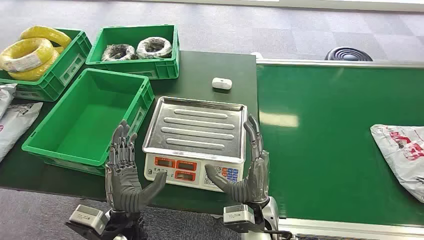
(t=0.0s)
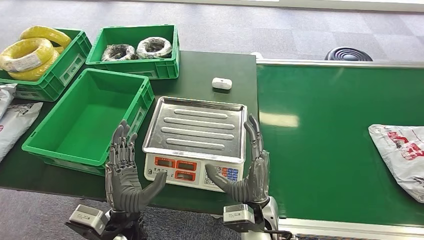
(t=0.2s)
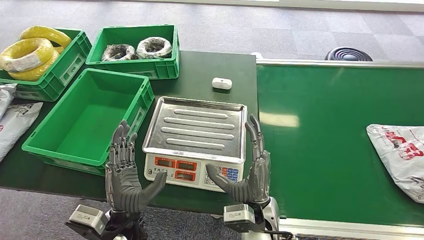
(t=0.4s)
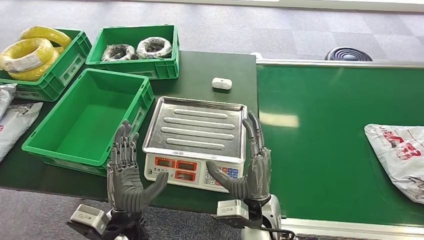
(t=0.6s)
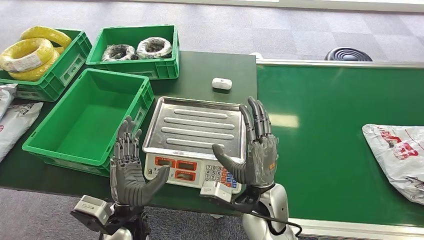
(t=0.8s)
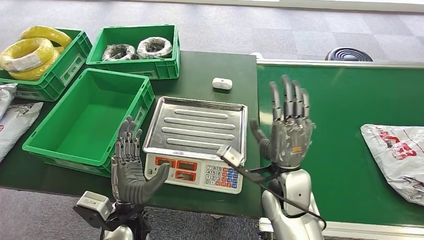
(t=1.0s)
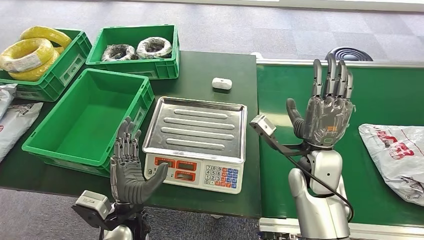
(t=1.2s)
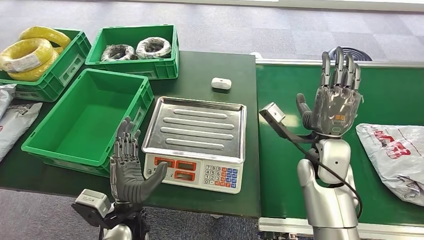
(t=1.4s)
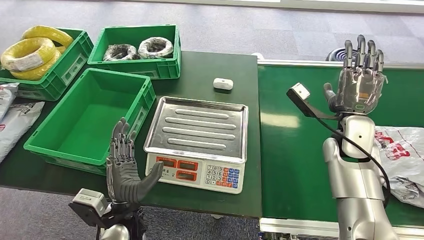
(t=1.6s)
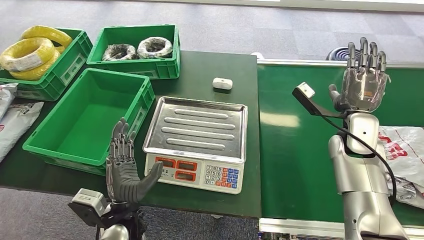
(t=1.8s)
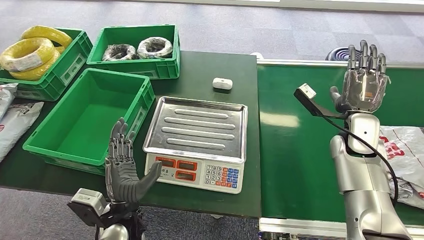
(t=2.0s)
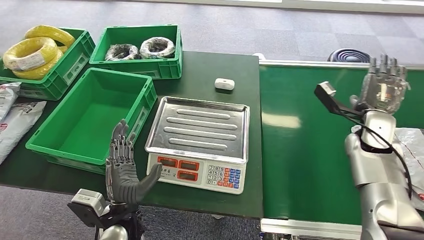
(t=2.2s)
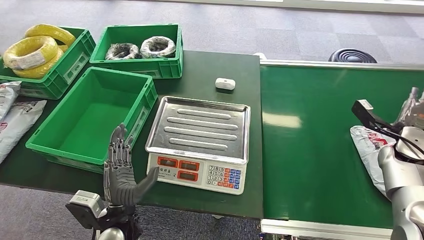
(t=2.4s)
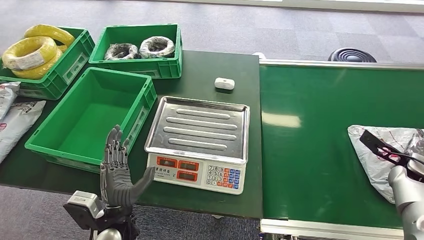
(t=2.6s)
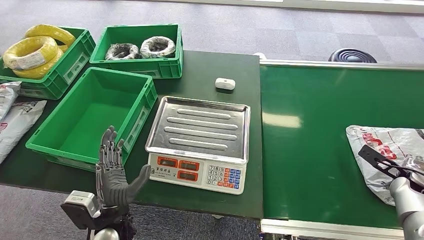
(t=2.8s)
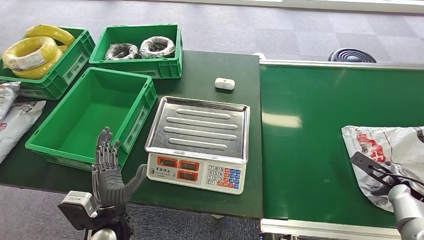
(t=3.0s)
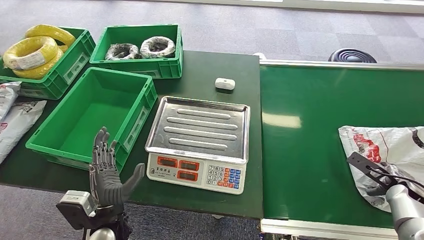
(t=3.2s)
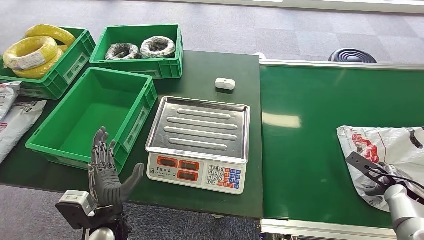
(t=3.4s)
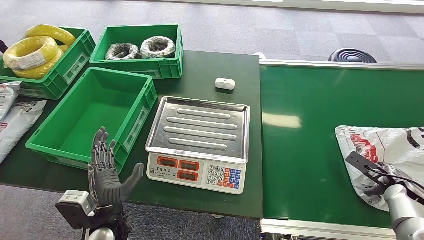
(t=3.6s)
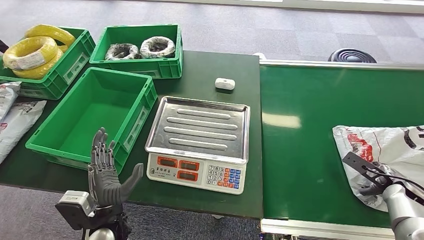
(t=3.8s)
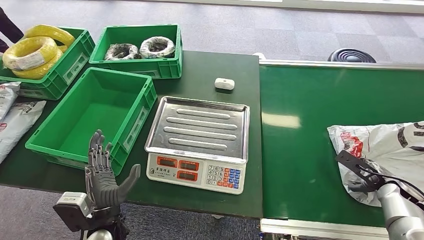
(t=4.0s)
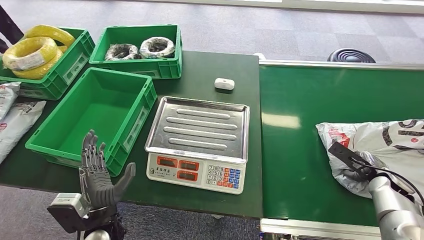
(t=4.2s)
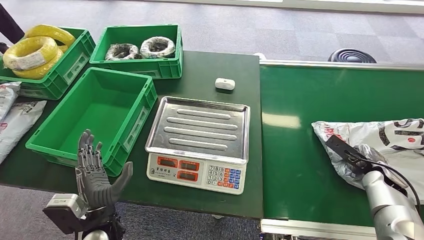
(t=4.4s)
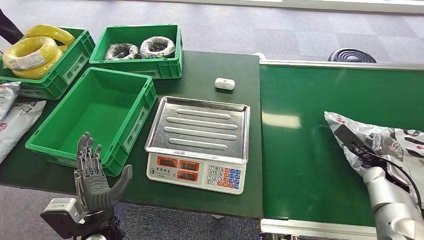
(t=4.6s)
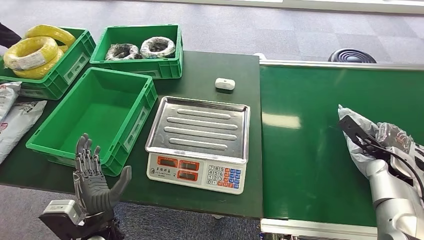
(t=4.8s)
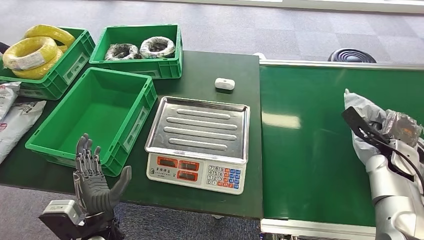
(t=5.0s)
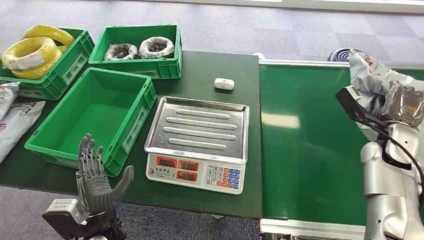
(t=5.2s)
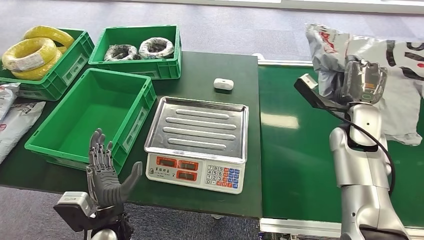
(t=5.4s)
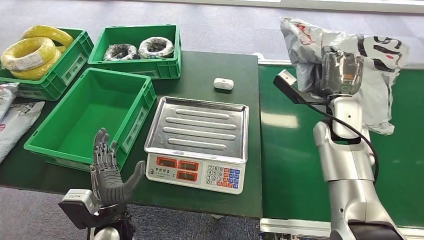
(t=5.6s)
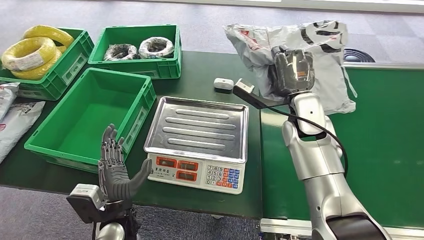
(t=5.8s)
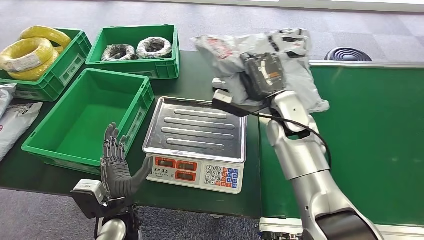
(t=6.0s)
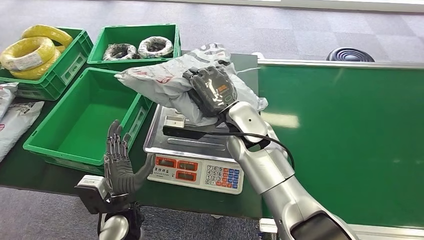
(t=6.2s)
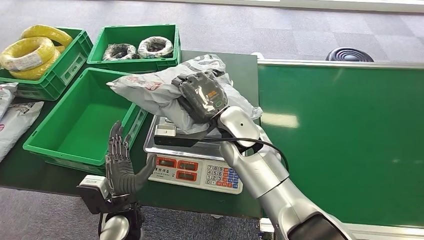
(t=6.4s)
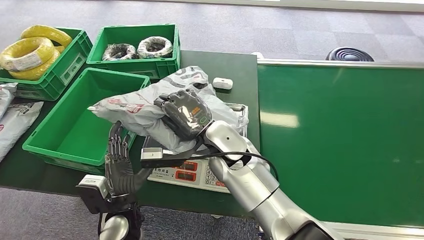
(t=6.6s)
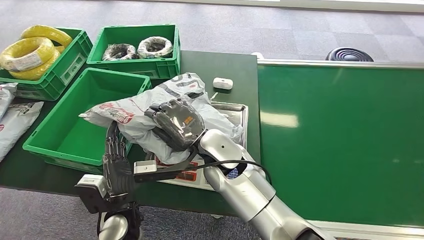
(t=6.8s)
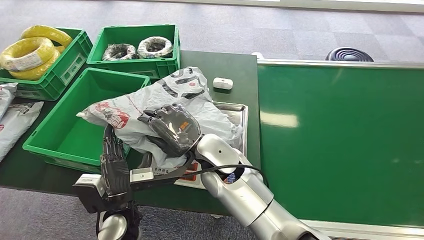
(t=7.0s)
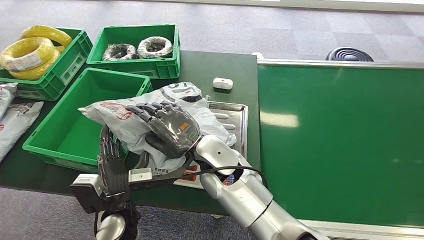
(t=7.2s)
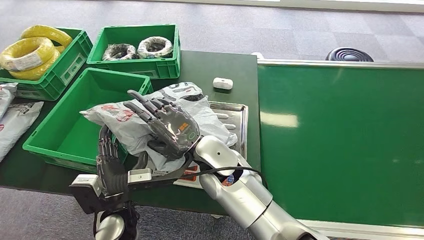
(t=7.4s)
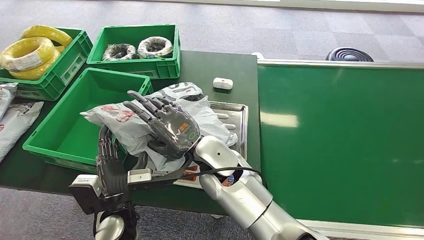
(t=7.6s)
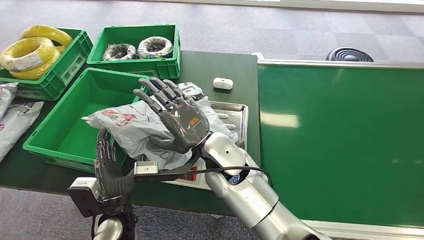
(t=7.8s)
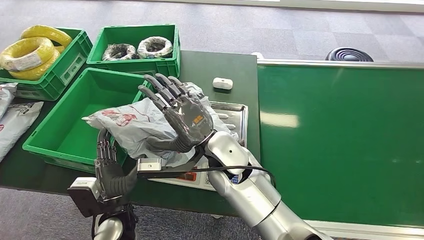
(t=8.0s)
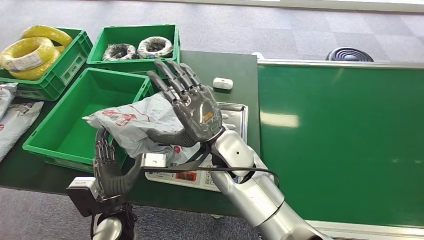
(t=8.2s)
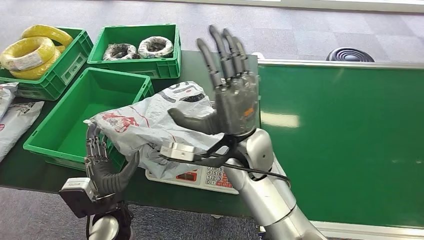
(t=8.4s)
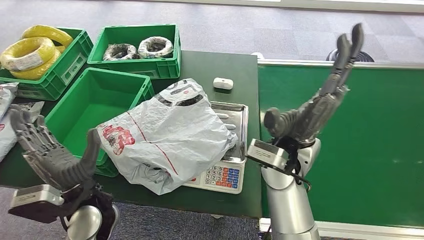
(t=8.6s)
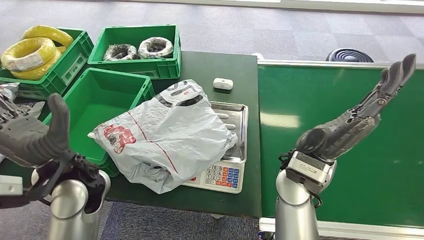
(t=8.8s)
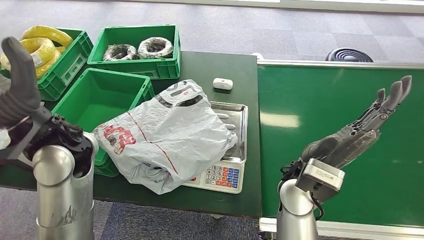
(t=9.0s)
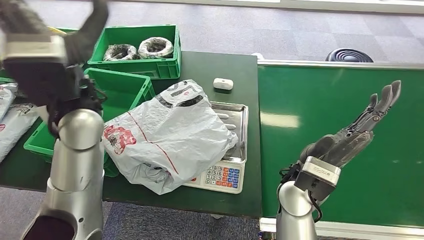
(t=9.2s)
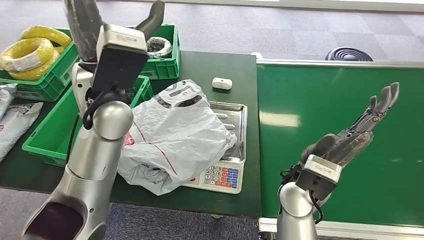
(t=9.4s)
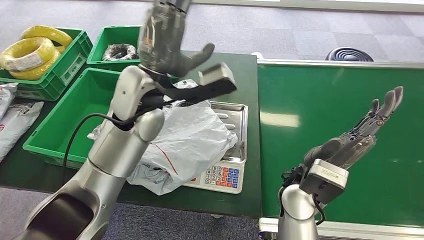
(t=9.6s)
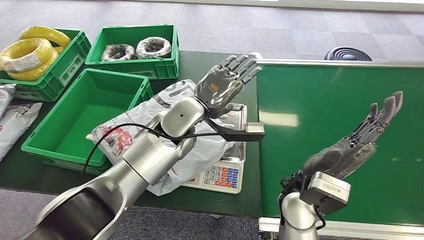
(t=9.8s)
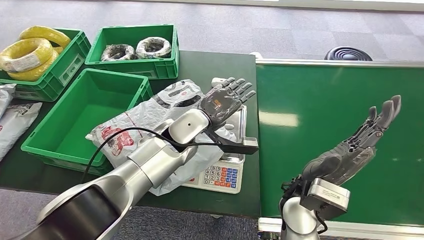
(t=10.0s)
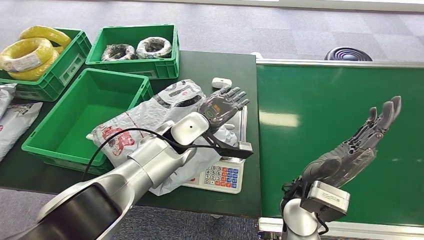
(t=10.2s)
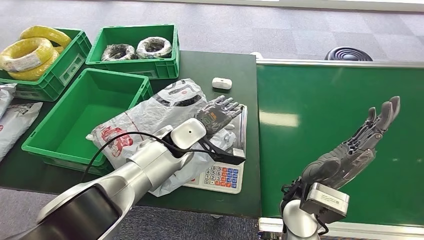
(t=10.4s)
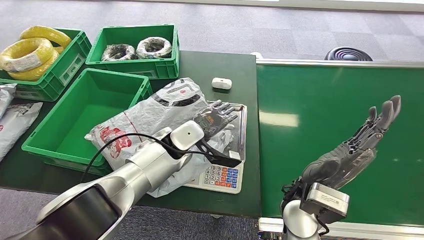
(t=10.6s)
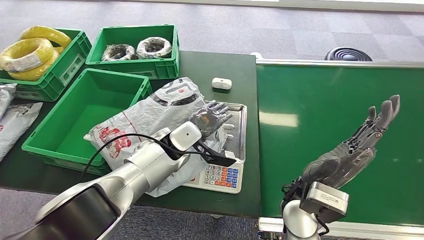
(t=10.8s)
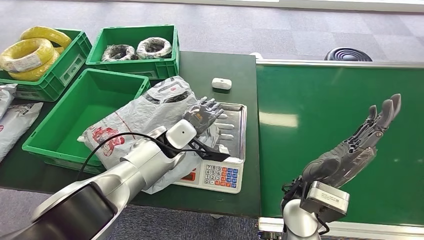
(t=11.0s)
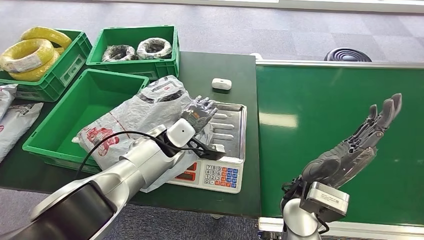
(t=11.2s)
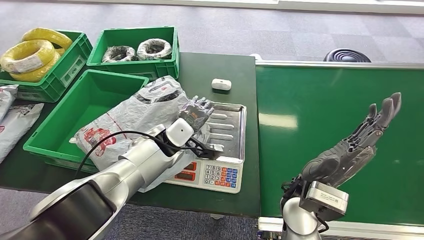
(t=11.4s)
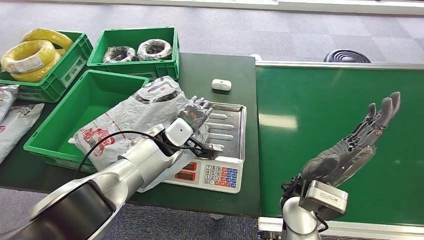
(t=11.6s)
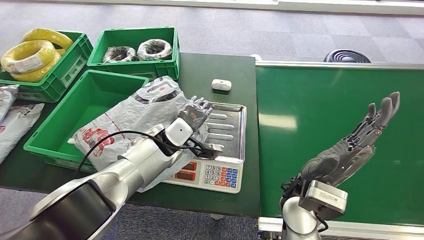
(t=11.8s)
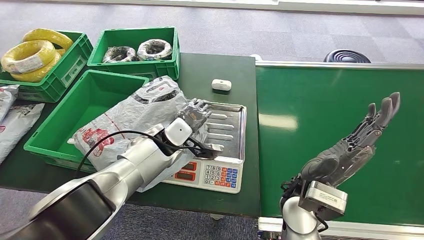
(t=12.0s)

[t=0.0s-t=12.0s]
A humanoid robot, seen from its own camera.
Step, t=0.0s to t=5.8s: Pick up the package from the conveyor belt.
Step, t=6.0s to t=8.8s: Place the package onto the inbound machine.
t=3.0s to t=4.4s: The right hand shifts roughly 5 cm to the left.

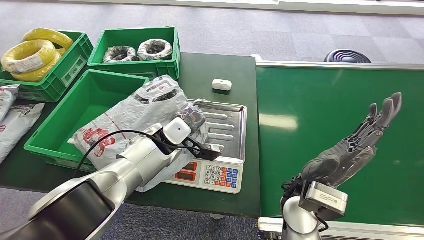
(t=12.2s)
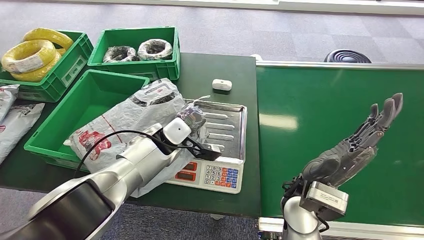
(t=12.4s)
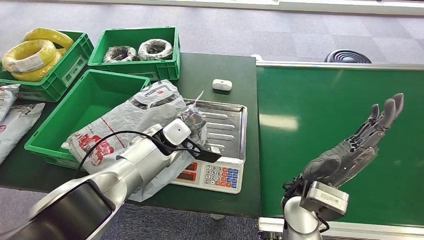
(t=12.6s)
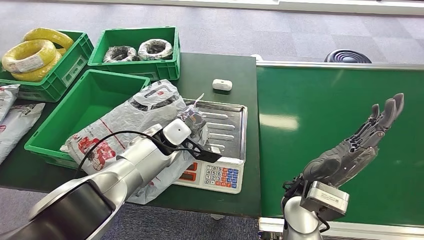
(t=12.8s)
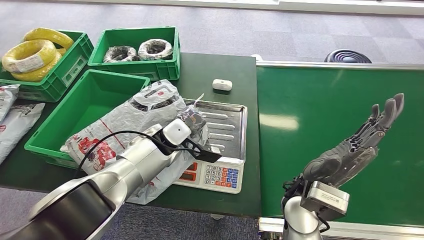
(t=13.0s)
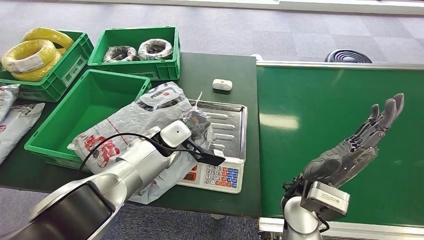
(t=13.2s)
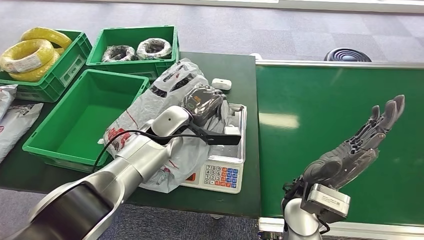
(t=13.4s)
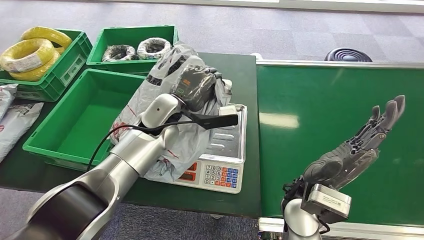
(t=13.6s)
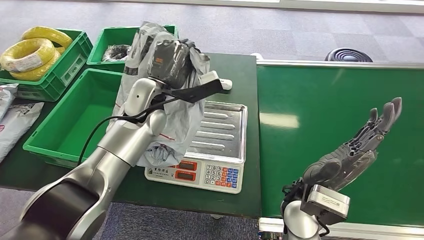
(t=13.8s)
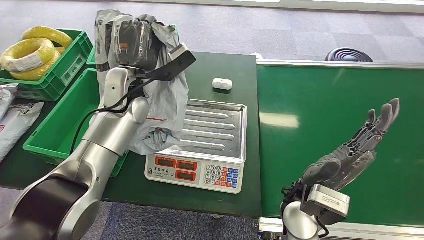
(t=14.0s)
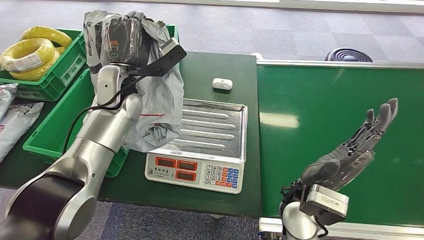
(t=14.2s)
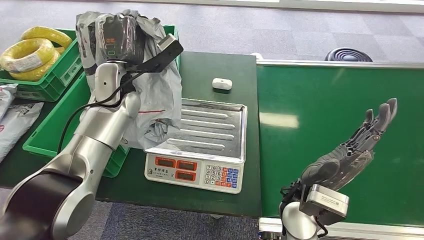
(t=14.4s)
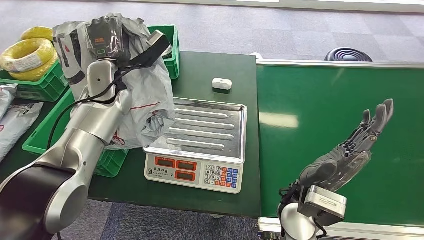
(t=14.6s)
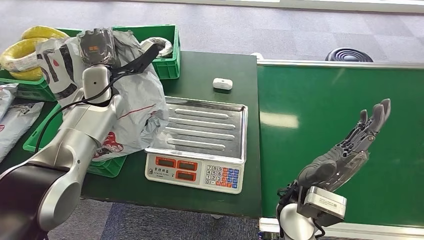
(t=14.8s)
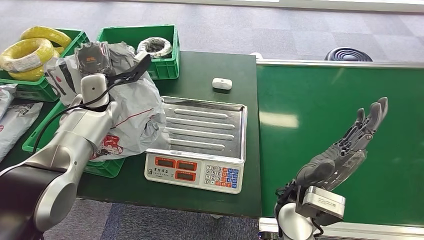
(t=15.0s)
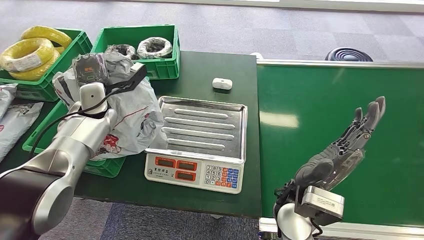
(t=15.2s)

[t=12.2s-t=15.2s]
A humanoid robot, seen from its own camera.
Step, t=14.2s to t=15.2s: Place the package into the parcel locker.
